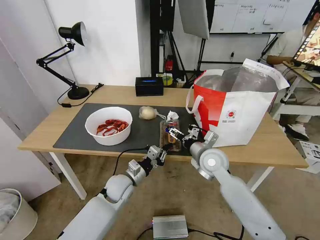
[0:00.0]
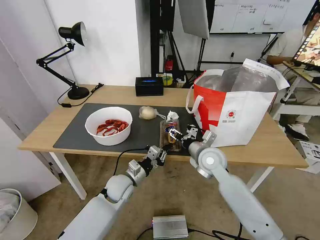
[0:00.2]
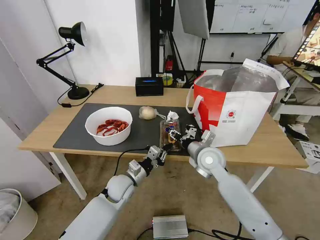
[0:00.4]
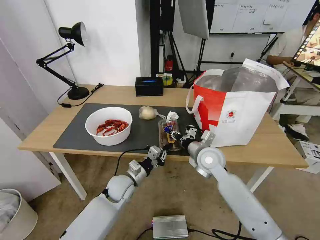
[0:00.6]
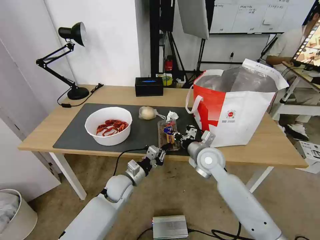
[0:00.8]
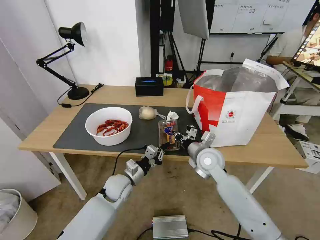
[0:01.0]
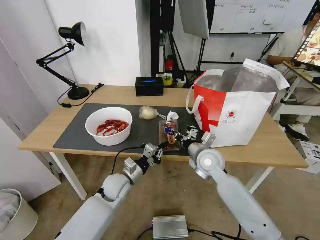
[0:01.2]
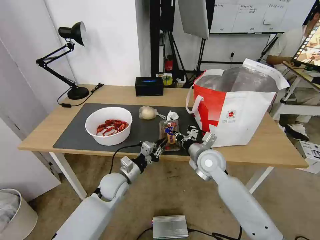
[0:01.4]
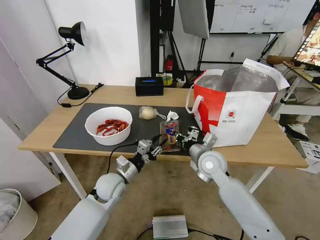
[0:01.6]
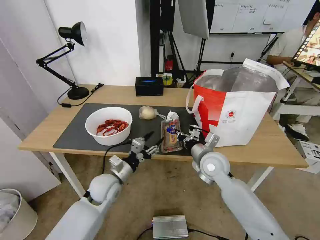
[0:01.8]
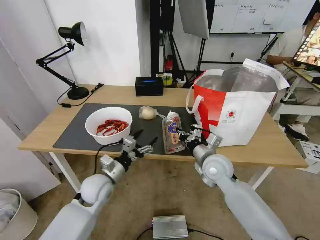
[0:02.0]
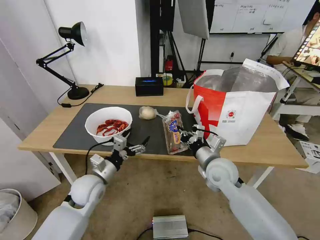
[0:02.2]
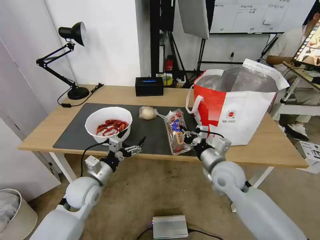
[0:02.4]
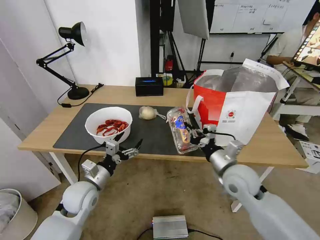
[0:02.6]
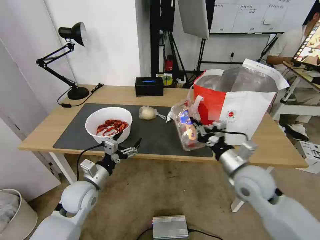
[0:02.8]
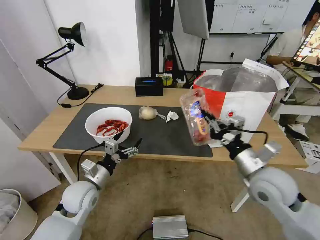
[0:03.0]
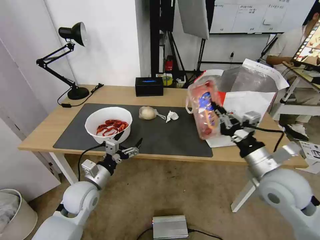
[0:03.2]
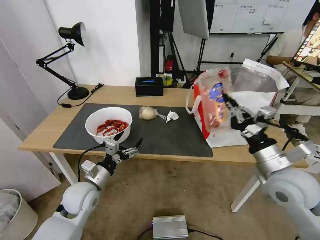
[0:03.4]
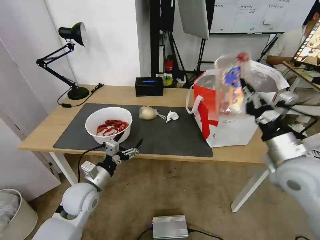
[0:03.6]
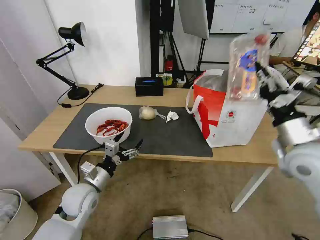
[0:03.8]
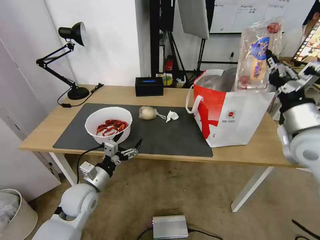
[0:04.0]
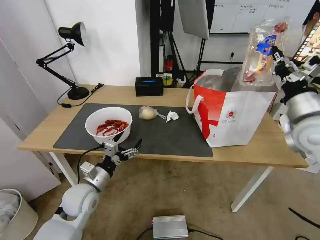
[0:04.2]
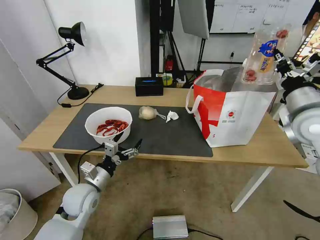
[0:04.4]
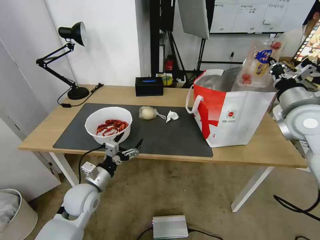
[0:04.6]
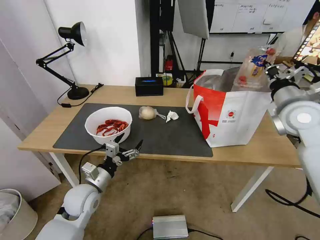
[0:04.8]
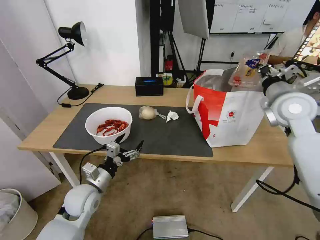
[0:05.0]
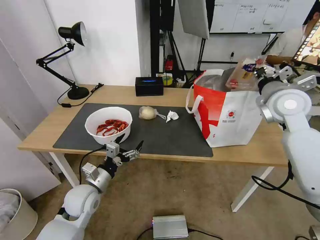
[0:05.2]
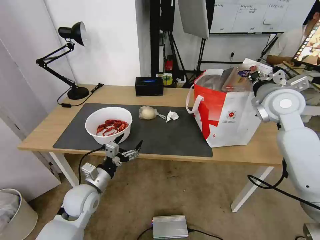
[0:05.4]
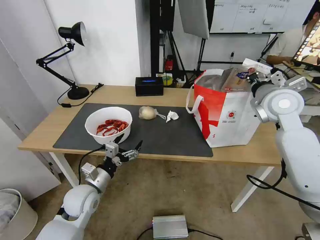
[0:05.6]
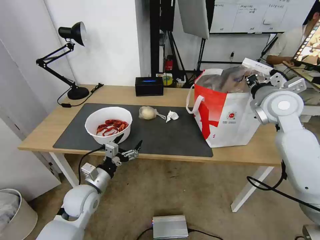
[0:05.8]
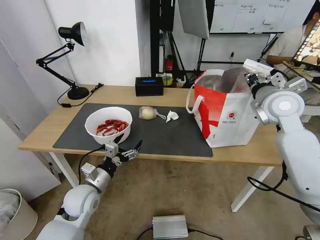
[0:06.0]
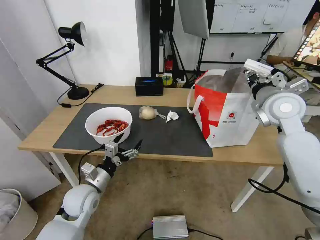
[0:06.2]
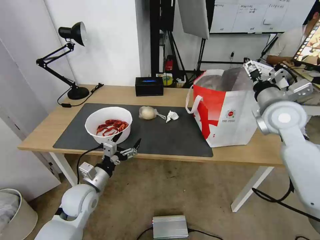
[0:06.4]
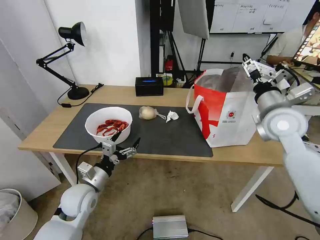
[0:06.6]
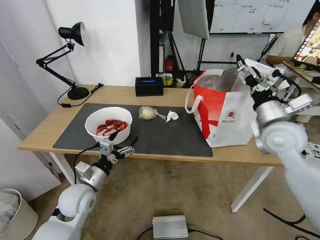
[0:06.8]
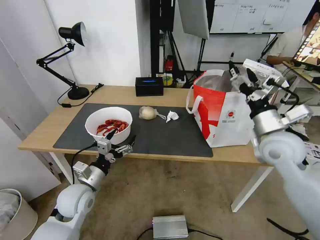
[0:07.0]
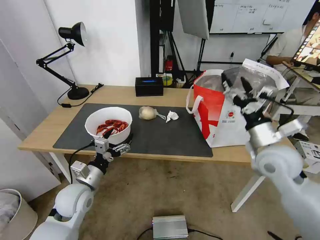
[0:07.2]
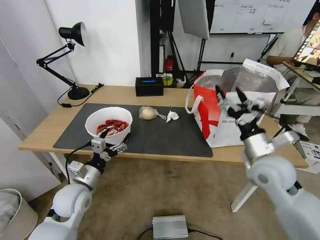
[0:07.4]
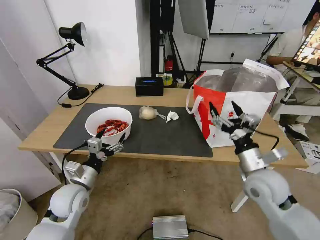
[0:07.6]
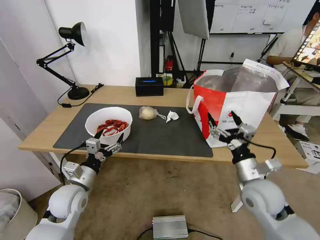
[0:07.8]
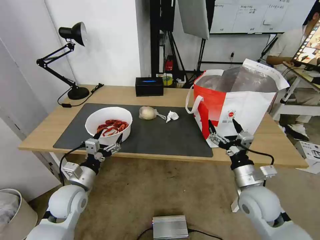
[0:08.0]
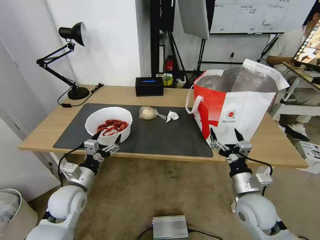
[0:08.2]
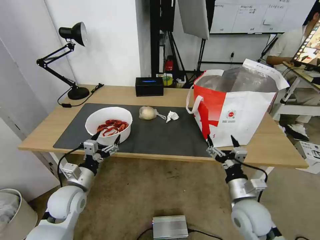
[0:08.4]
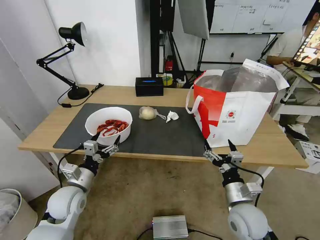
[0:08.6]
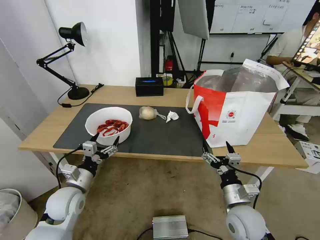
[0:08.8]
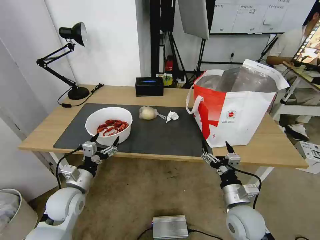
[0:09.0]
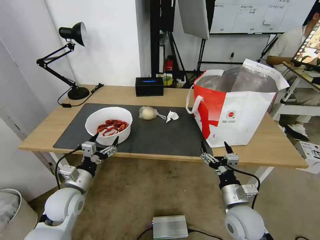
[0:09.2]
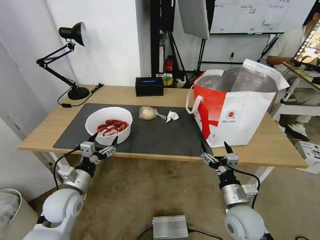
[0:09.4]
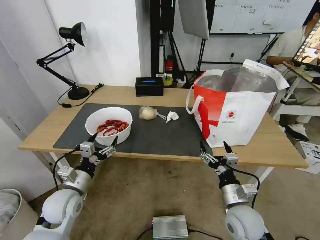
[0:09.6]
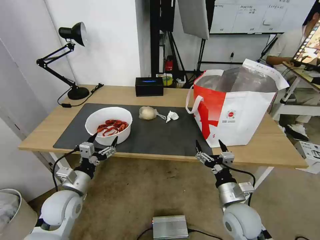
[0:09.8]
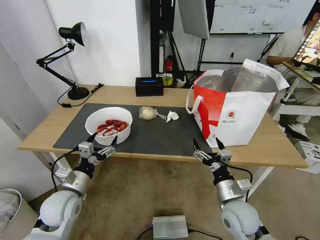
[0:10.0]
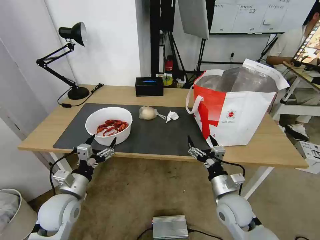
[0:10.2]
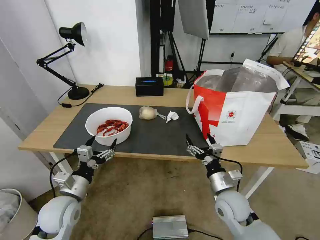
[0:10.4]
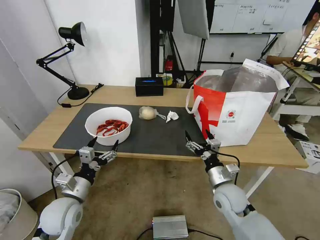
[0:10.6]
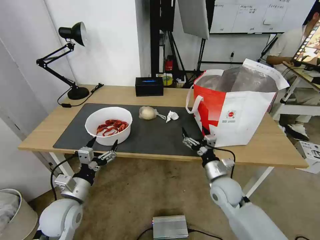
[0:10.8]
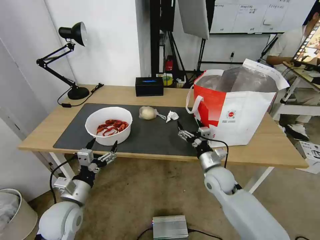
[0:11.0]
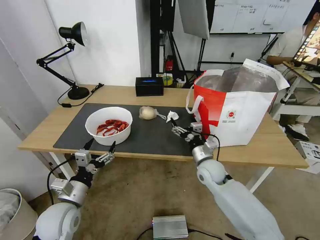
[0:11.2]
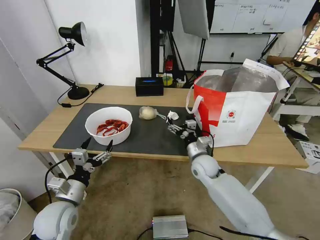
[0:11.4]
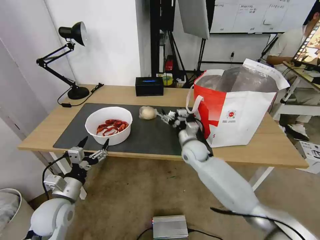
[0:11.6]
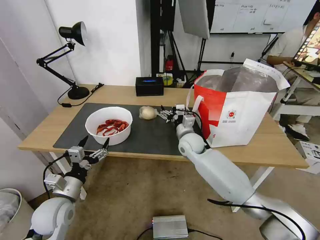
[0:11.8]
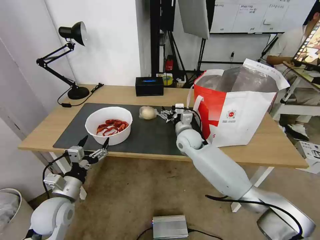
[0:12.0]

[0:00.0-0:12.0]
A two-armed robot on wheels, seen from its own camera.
Task of the whole recording: Pick up the trash from the table and place it into the takeout bag.
0:00.0 to 0:01.6: The left gripper opens. The right gripper closes.
0:01.6 to 0:03.0: The right gripper heads backward, to the right and upward, covering roughly 15 cm; the left gripper shifts roughly 10 cm to the left, and opens its fingers.
0:03.0 to 0:04.4: The right gripper moves upward, forward and to the right, some 20 cm.
0:04.4 to 0:06.0: The right gripper heads forward, covering approximately 5 cm.
0:06.0 to 0:07.6: The right gripper shifts about 20 cm backward and downward, and opens its fingers.
0:07.6 to 0:09.0: The right gripper goes roughly 10 cm downward and backward.
0:09.0 to 0:10.4: The grippers stay close to where they were, moving slightly.
0:10.4 to 0:12.0: The right gripper goes roughly 25 cm forward and to the left.

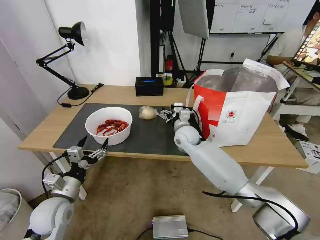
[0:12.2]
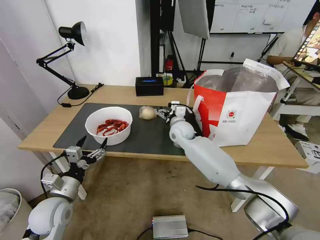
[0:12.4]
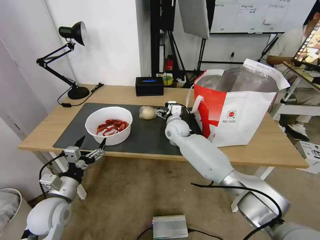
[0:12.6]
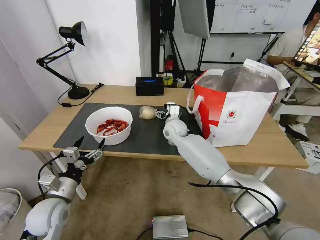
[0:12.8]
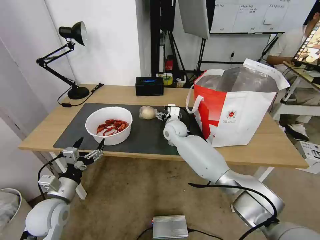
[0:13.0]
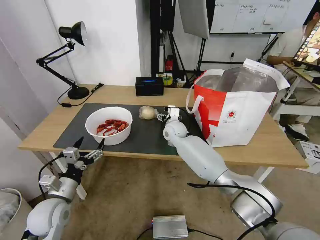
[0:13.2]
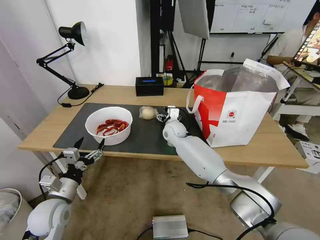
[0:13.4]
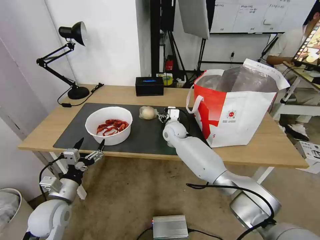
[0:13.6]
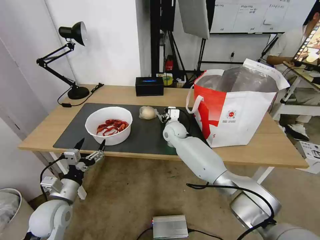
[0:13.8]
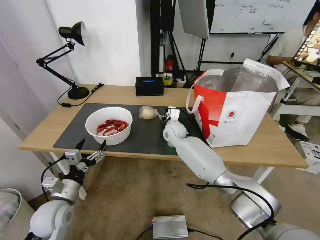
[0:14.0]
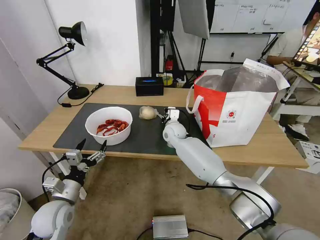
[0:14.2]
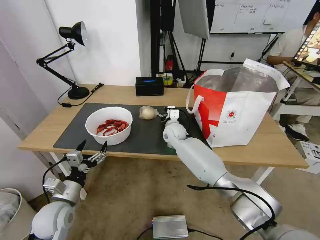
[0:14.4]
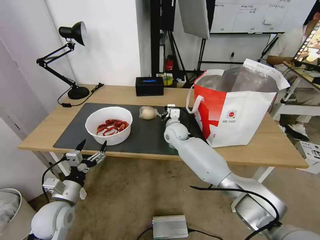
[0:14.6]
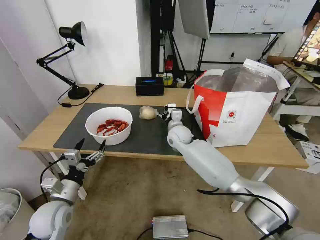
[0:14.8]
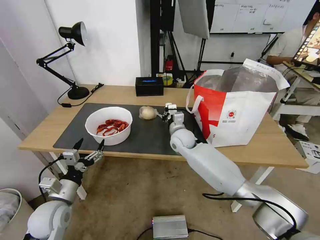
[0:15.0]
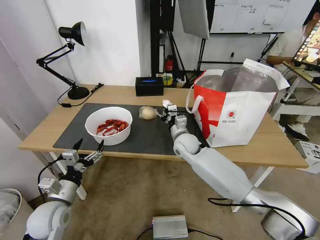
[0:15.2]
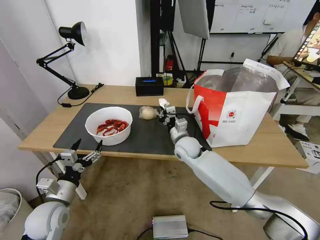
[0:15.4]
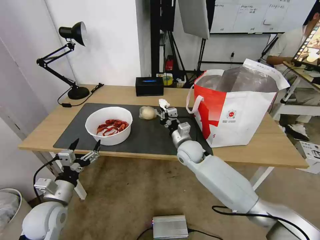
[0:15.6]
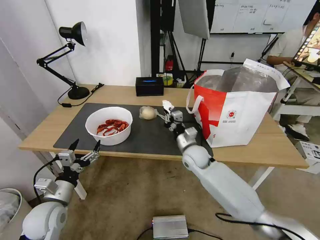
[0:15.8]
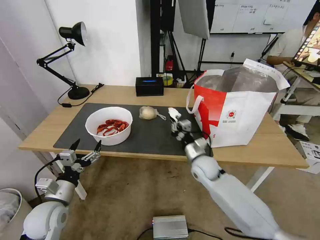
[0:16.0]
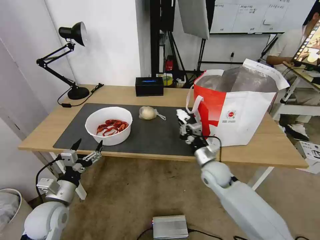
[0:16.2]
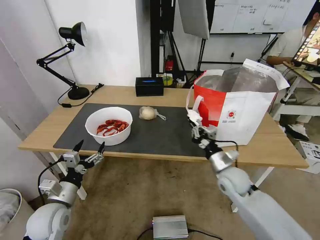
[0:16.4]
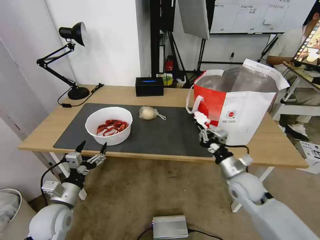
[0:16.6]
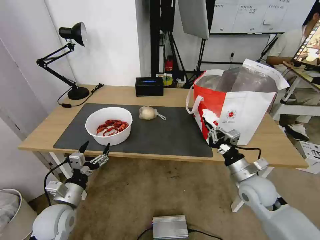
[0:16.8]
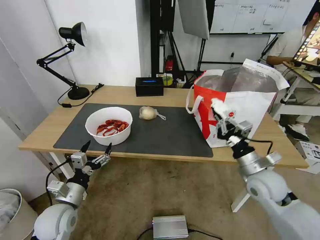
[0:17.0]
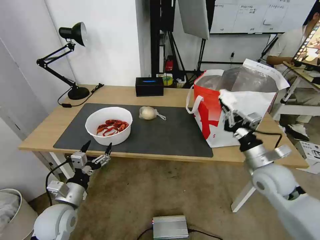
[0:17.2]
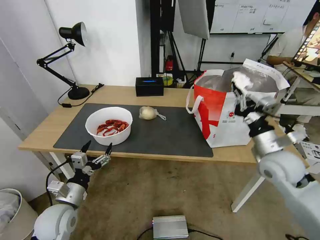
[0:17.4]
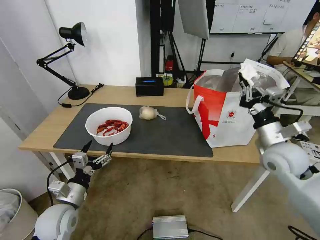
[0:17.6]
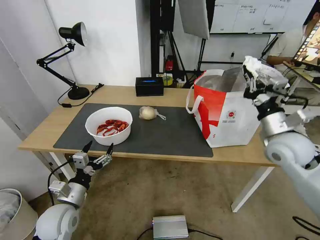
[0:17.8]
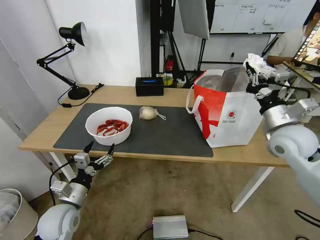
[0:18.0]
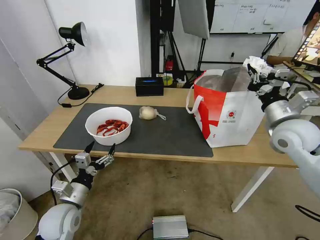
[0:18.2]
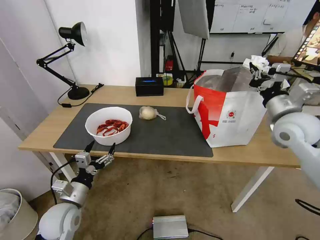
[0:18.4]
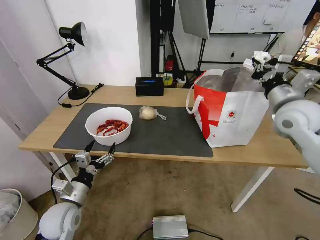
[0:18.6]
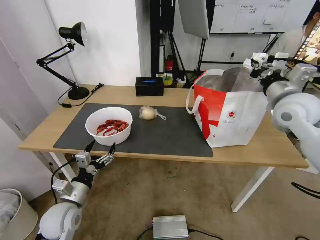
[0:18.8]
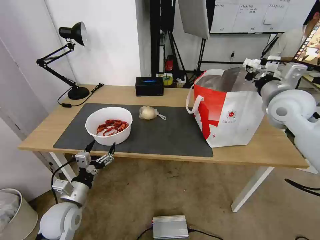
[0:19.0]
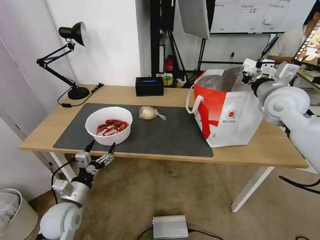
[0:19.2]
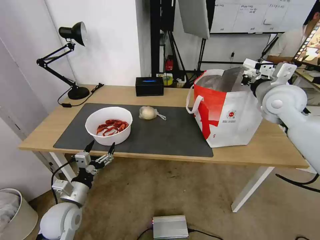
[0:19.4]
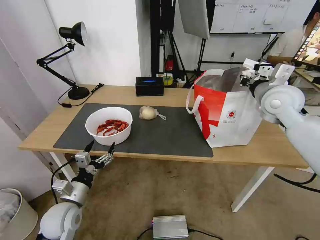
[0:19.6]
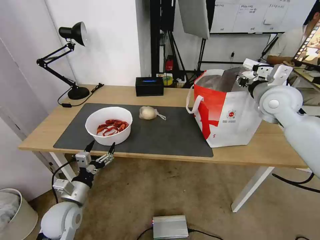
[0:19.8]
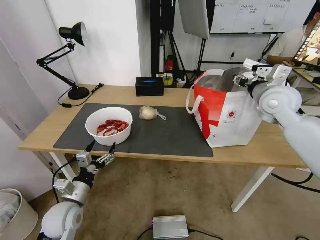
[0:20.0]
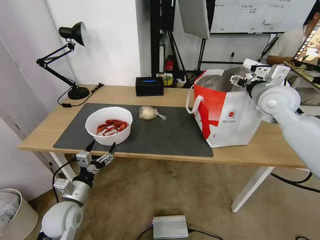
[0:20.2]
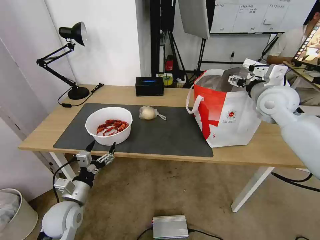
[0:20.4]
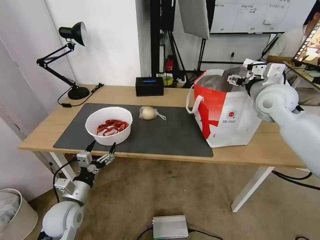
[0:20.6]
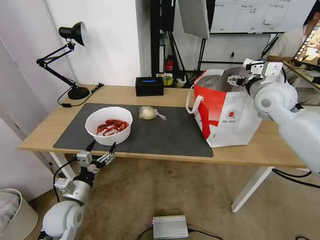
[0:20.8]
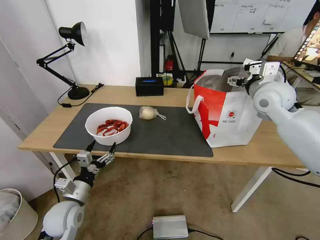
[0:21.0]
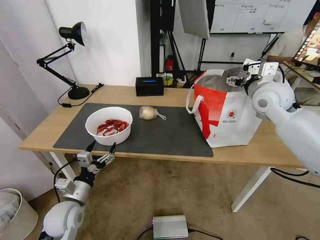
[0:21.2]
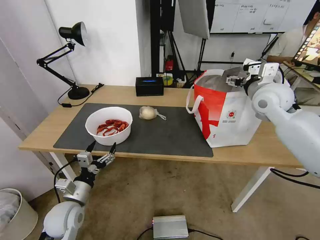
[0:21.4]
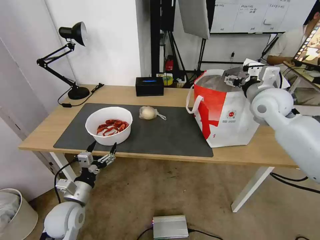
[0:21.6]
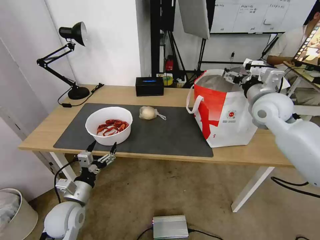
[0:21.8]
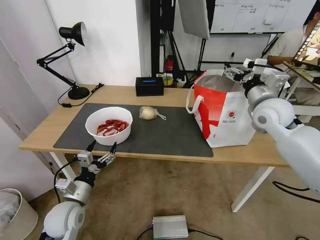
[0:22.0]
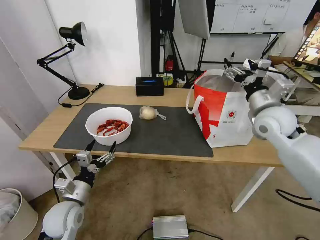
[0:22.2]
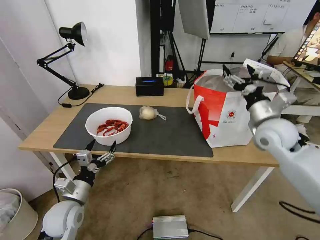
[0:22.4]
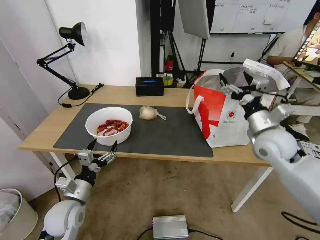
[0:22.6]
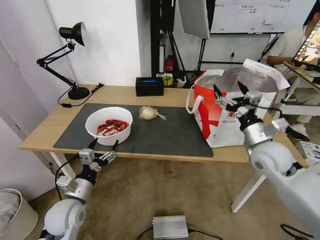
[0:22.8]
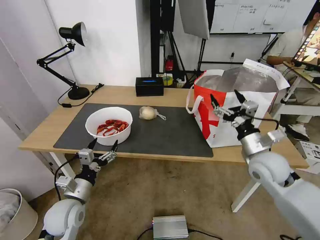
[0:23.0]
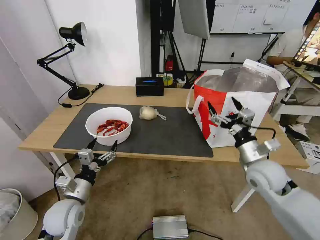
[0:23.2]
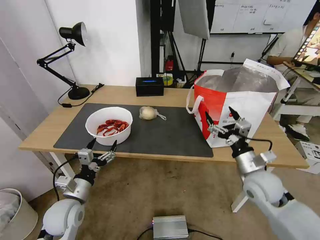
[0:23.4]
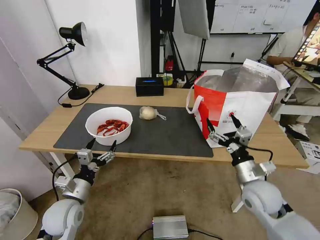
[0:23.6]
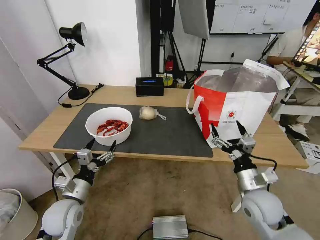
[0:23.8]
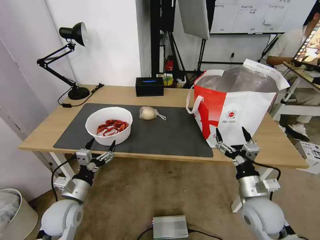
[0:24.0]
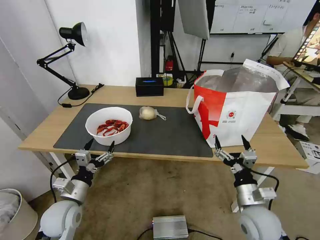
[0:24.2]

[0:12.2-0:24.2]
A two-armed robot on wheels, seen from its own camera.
Task of the whole recording: Pick up the trash from the table and place it into the takeout bag.
0:12.2 to 0:13.8: The right gripper changes place by about 5 cm, and closes up.
0:13.8 to 0:15.2: The right gripper is displaced backward by some 5 cm, and closes its fingers.
0:15.2 to 0:16.6: The right gripper heads to the right and backward, covering about 25 cm.
0:16.6 to 0:18.2: The right gripper shifts some 20 cm upward and to the right.
0:18.2 to 0:19.8: The right gripper is displaced forward and upward by approximately 10 cm, and opens up.
0:19.8 to 0:21.2: The right gripper opens up.
0:21.2 to 0:22.6: The right gripper is displaced downward and backward by some 15 cm.
0:22.6 to 0:24.2: The right gripper is displaced backward and downward by roughly 20 cm.
